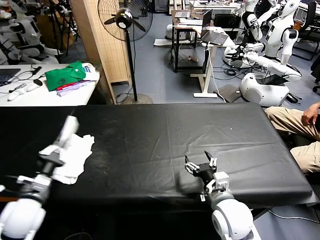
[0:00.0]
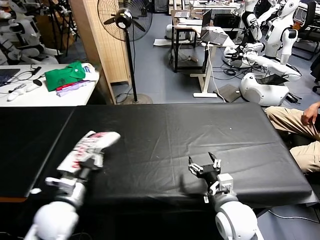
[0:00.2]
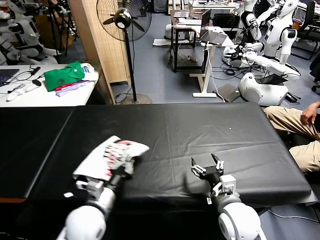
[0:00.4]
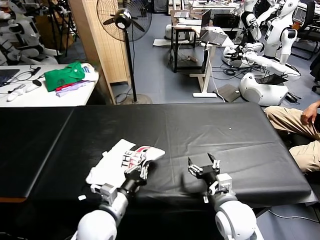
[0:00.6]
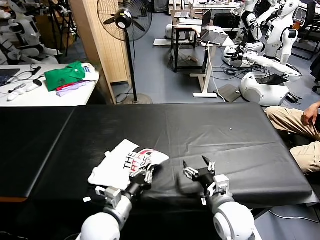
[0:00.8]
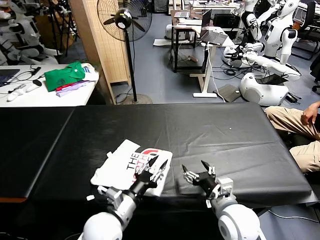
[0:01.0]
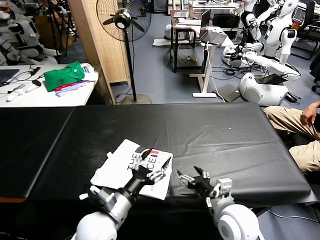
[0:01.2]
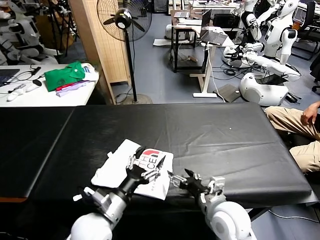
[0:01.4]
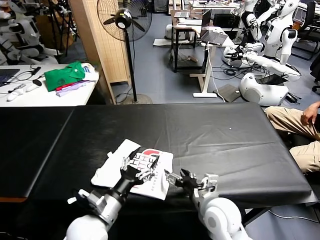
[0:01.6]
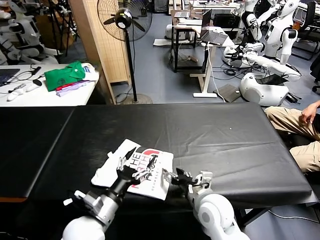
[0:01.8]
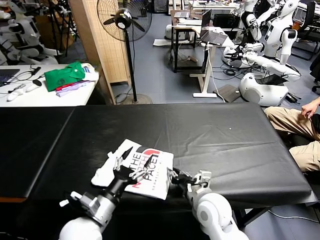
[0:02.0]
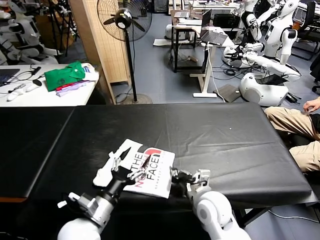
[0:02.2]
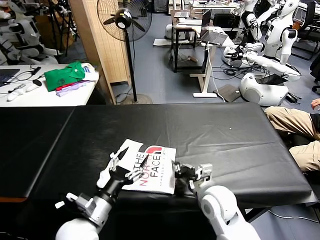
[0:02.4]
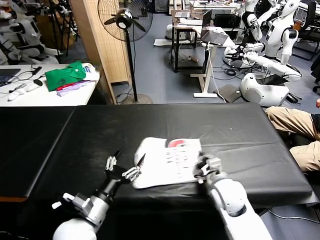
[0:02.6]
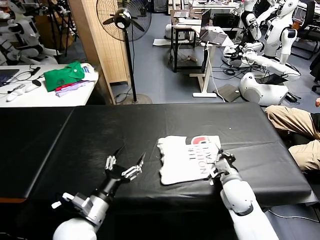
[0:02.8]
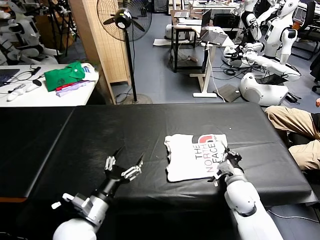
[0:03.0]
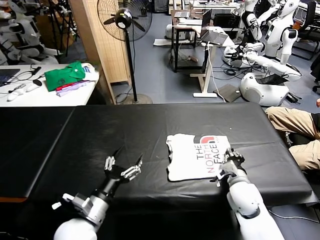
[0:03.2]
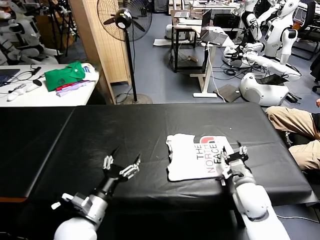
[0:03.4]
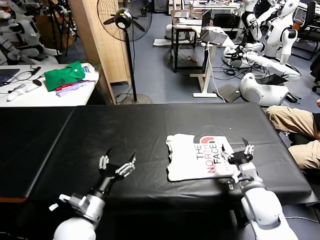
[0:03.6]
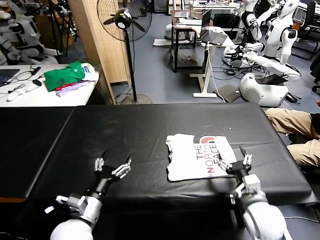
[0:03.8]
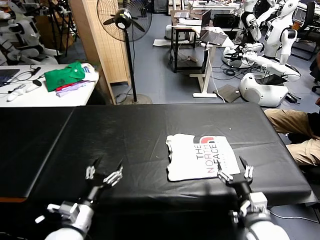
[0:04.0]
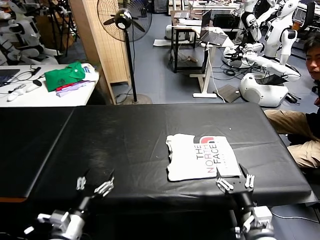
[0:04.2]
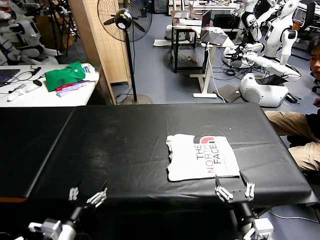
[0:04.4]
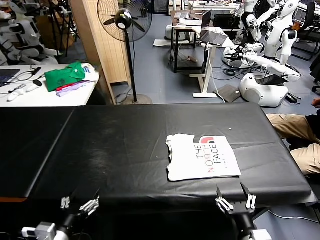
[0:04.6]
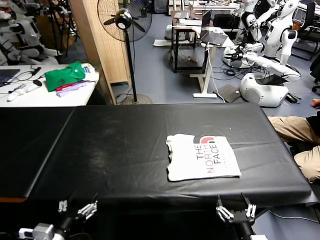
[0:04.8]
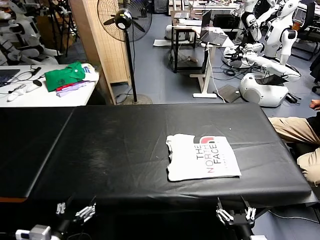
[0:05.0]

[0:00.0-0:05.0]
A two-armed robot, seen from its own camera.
Task of the whole recording: fold and organize the clothes.
Step, 0:01.2 to 0:03.2: Drag the clothes to the center of the table.
0:00.0 to 0:01.6: The left gripper heads to the right, covering roughly 20 cm, and opens.
0:01.6 to 0:03.4: The right gripper heads to the right and forward, covering roughly 10 cm, and closes its fingers.
0:03.4 to 0:05.0: The right gripper moves backward, approximately 20 cm, and opens. Meanwhile the left gripper shifts roughly 15 cm backward and to the left.

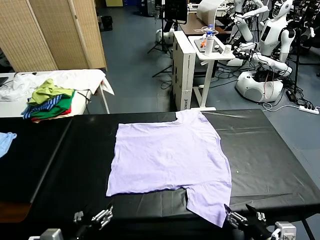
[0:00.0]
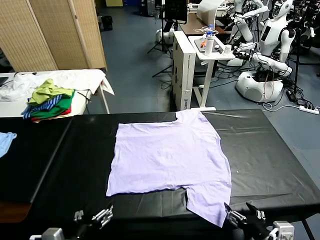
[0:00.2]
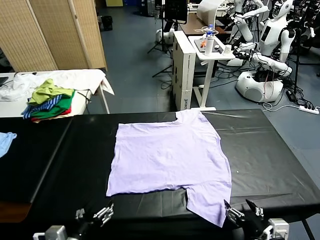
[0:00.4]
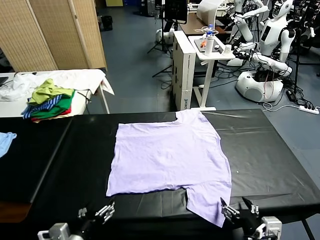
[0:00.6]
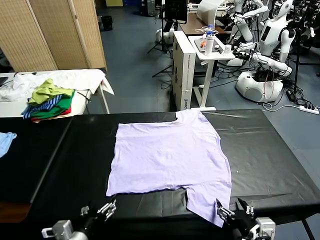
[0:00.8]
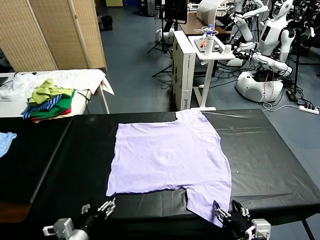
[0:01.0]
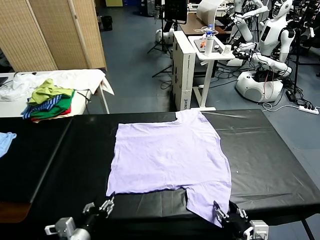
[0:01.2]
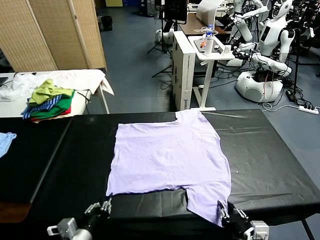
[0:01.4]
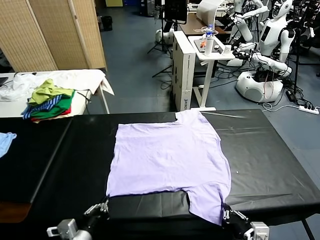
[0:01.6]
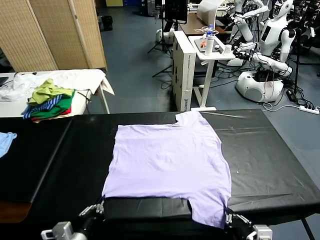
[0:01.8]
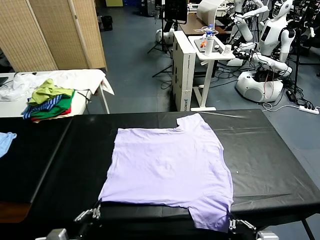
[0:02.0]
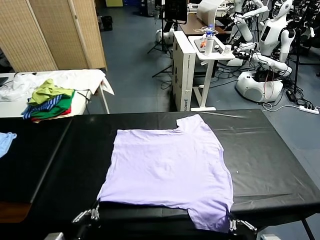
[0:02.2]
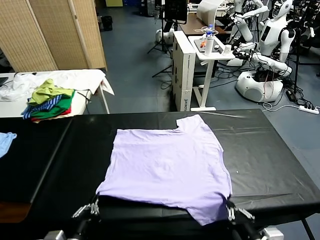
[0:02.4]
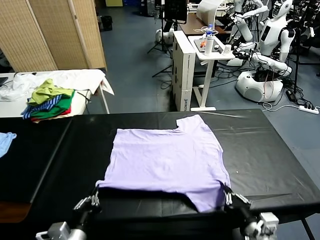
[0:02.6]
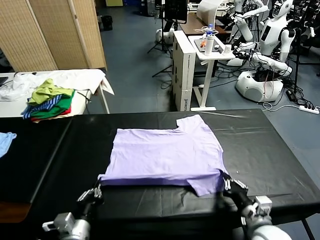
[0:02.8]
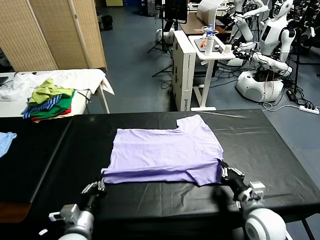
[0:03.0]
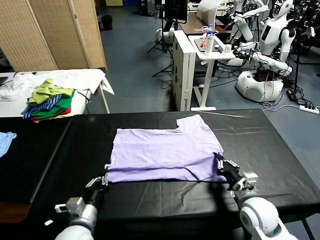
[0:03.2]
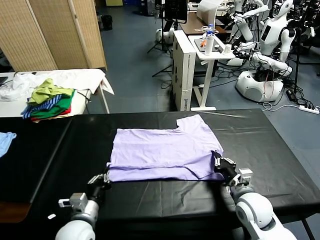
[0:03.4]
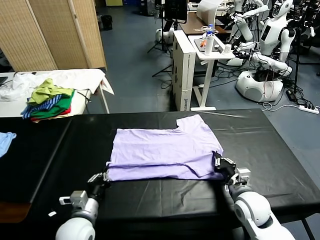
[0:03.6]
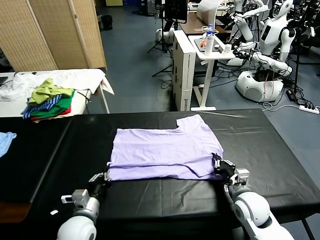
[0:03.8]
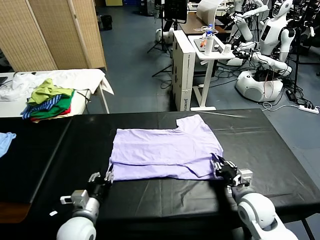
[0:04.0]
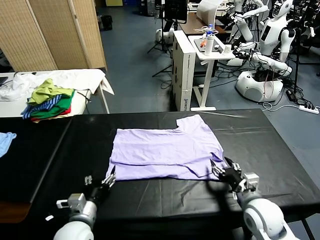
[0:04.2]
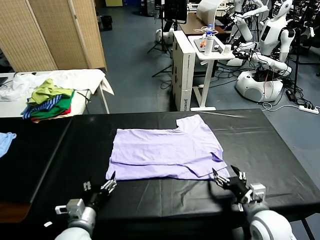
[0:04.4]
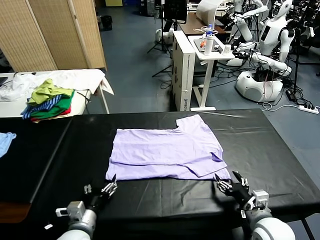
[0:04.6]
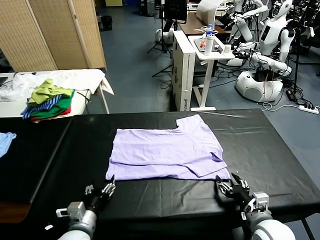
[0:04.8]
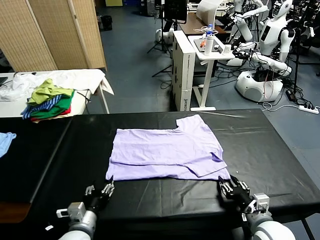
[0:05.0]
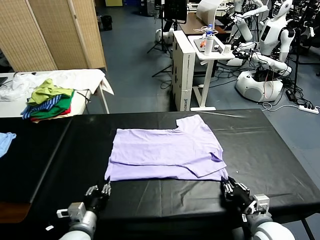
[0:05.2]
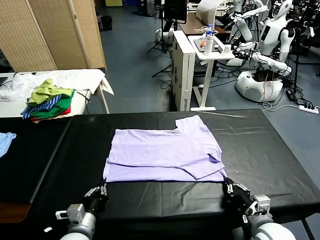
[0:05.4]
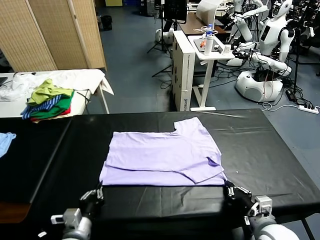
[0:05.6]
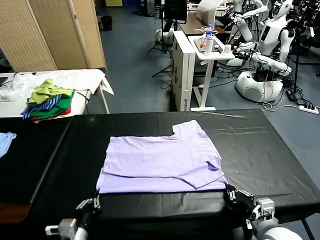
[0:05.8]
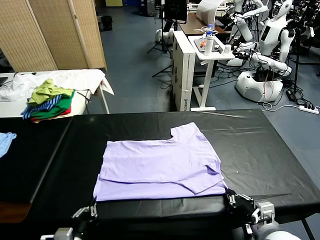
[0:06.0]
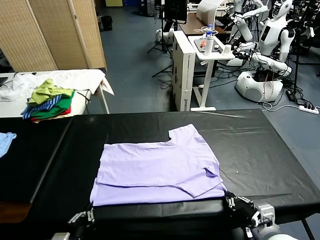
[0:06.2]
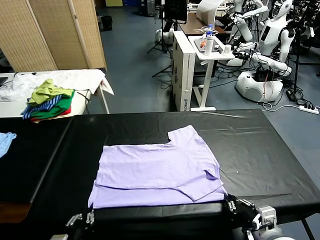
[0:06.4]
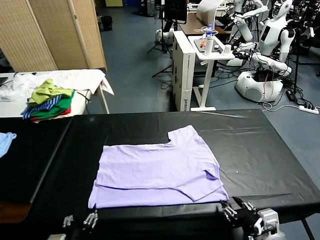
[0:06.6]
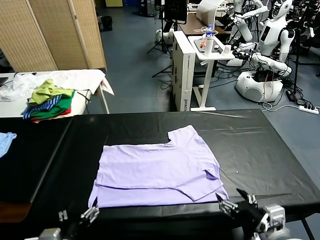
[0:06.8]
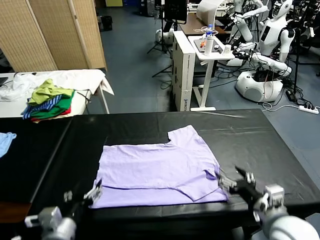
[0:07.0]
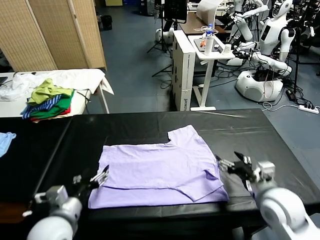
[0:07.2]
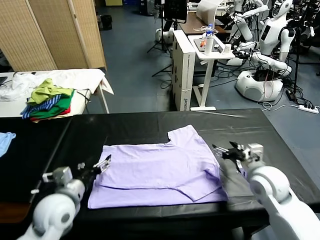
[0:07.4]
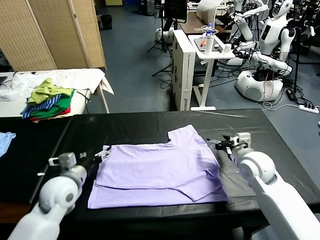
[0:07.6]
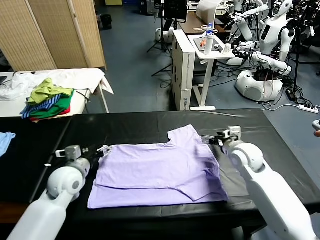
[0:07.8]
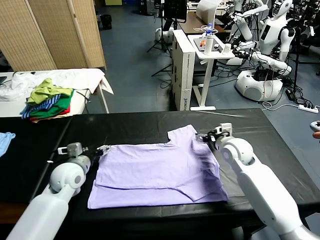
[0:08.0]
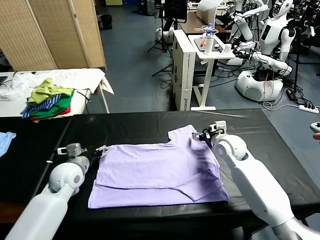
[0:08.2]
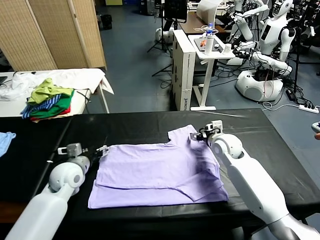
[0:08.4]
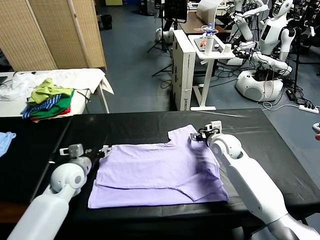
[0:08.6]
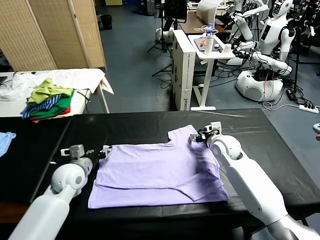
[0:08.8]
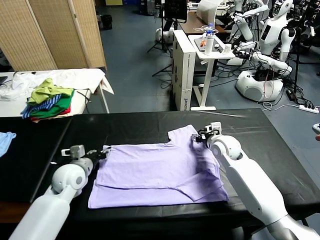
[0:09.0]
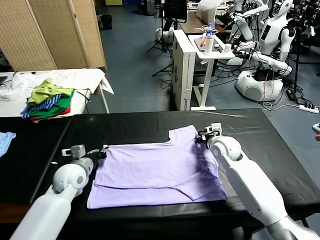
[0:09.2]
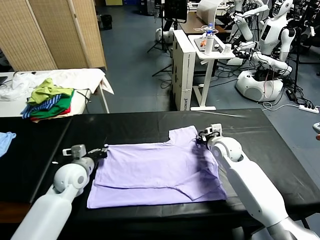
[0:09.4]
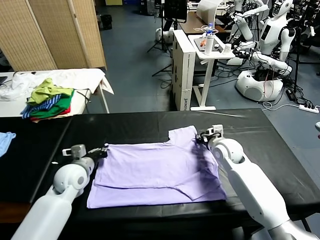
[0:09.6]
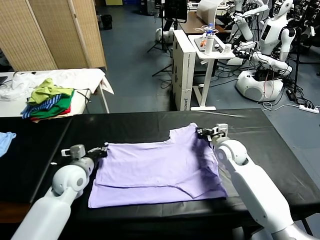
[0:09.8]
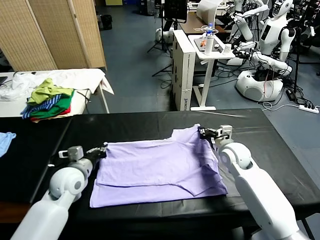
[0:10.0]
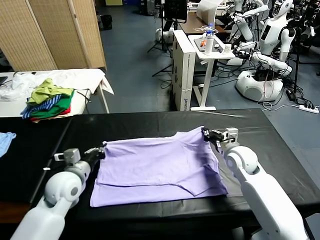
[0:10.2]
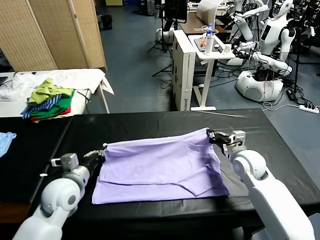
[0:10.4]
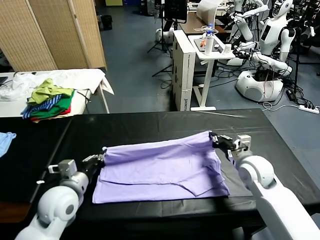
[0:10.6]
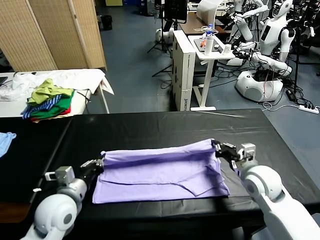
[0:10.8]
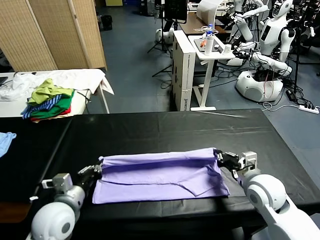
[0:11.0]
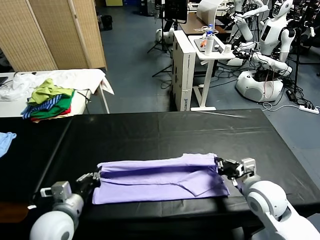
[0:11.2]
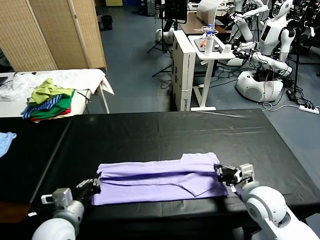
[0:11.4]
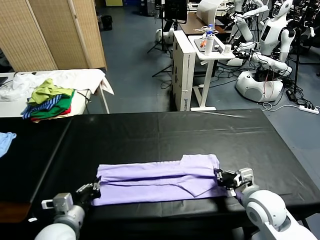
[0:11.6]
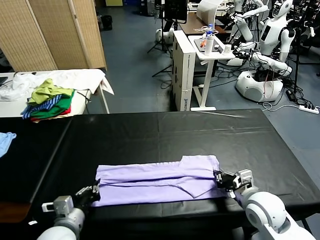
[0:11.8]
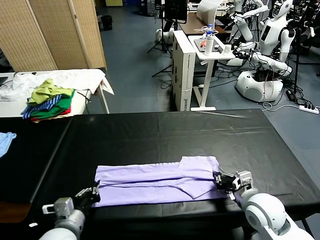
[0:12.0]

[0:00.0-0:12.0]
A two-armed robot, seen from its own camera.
Task of the whole recording: fold and organize the clothes.
Step, 0:00.0 to 0:01.6: use both grippers simultaneously to clamp the lower edge of the clothing fabric.
Step, 0:02.0 to 0:04.0: use both grippers to drag the lower edge of the fabric forward and fold it over the upper edge.
Step, 0:04.2 to 0:06.6: Drag the clothes downward with both gripper.
Step, 0:06.8 to 0:09.6: use both grippers simultaneously to clamp the upper edge of the clothing fabric.
0:01.6 to 0:03.0: The left gripper goes about 5 cm forward. Meanwhile the right gripper goes roughly 20 cm forward.
0:03.0 to 0:04.4: The left gripper opens its fingers. The right gripper is displaced backward by roughly 5 cm, and opens its fingers.
0:04.4 to 0:06.0: The left gripper is displaced backward by some 10 cm, and closes up. Meanwhile the right gripper shifts by roughly 5 cm, and closes up.
0:06.0 to 0:07.6: Both grippers travel together forward, approximately 25 cm. The left gripper opens up. The right gripper opens its fingers.
0:07.6 to 0:09.0: The left gripper changes place by about 5 cm, and closes; the right gripper moves approximately 5 cm, and closes its fingers.
0:09.0 to 0:10.4: The right gripper is displaced backward and to the right by some 10 cm. Meanwhile the left gripper moves backward, about 10 cm.
0:10.4 to 0:12.0: The two grippers go roughly 10 cm backward.

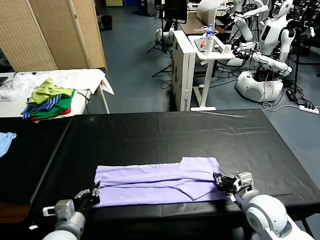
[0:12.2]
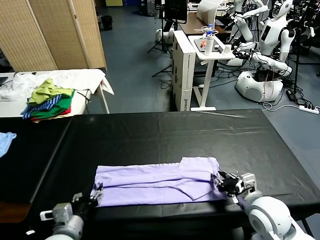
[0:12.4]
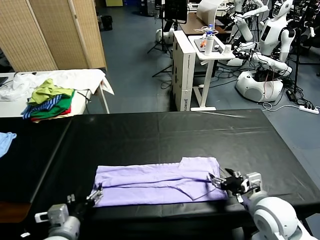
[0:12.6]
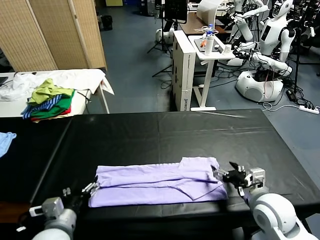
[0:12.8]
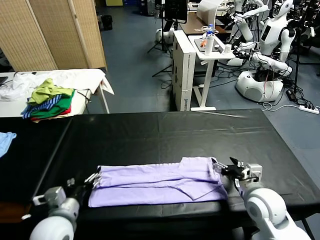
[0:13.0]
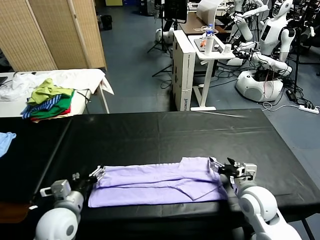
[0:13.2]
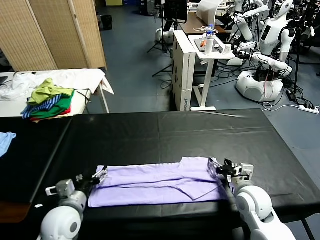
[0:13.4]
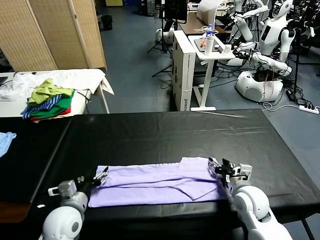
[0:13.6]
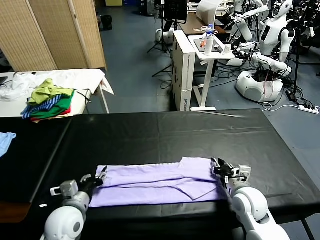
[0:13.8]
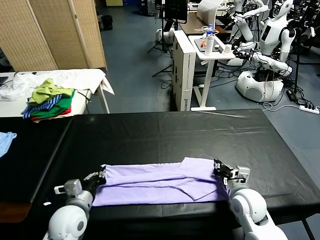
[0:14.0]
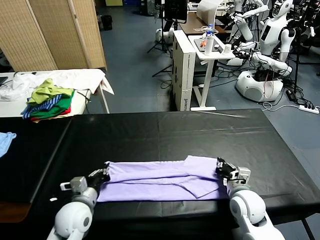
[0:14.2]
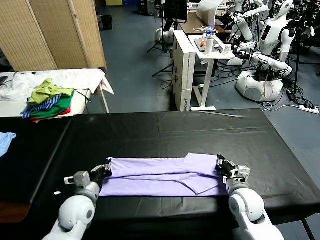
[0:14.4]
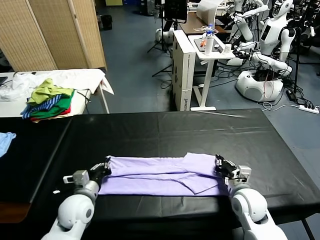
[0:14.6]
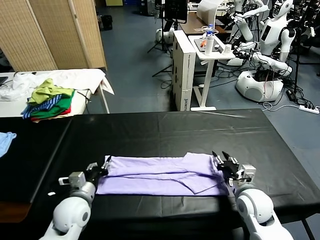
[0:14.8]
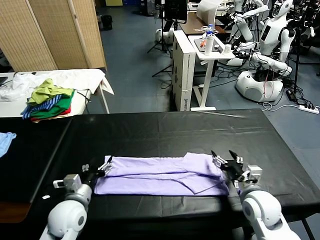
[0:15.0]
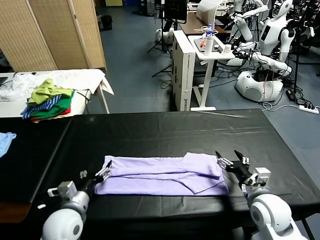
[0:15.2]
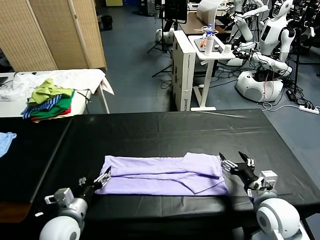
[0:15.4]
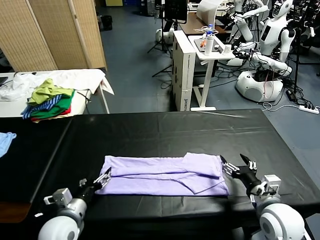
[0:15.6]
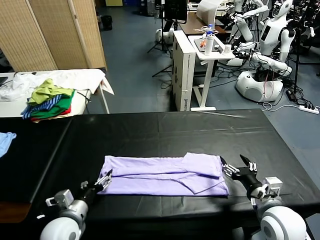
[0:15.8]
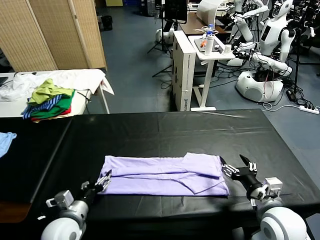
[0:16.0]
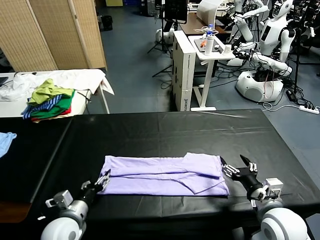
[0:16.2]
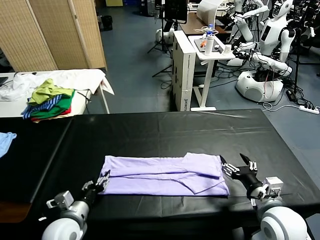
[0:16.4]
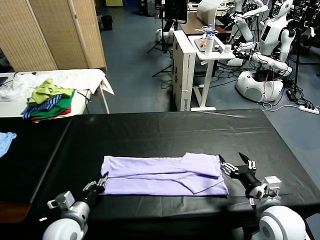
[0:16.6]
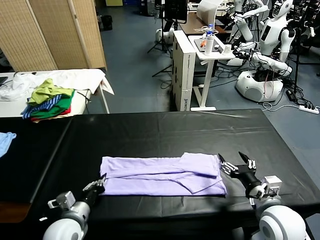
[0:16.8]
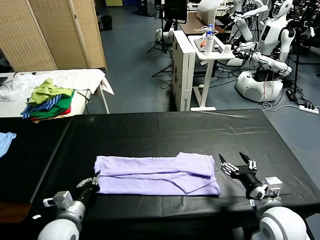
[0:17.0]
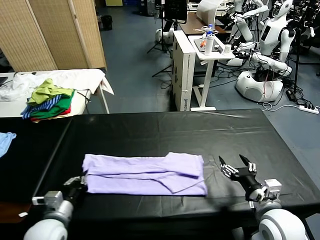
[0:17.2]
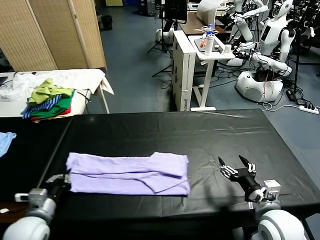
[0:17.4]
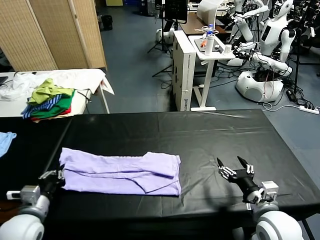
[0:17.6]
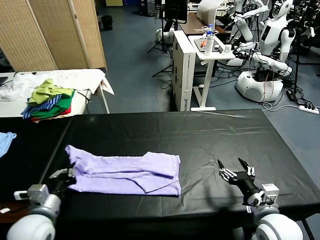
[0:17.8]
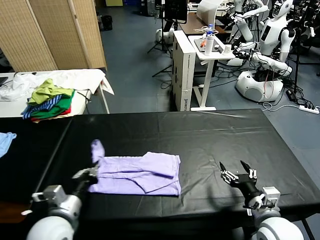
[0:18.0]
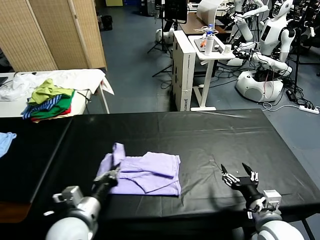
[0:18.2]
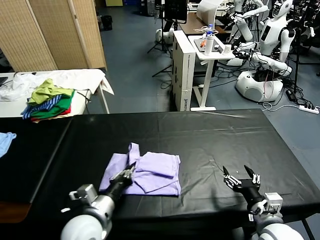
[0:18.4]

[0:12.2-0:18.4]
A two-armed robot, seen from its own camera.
Task of the whole recording: fold and organize the clothes.
Step, 0:12.6 to 0:17.0: use the left gripper to clamp the left edge of the fabric.
0:12.2 to 0:13.8: The left gripper heads forward, covering some 5 cm, and opens, then closes again. Meanwhile the right gripper is displaced downward by some 5 cm, and closes up.
0:13.8 to 0:15.4: The left gripper opens; the right gripper is displaced backward and upward by some 10 cm, and opens its fingers.
0:15.4 to 0:16.8: The left gripper closes its fingers.
0:16.8 to 0:18.4: The left gripper travels to the right and upward by some 10 cm.
